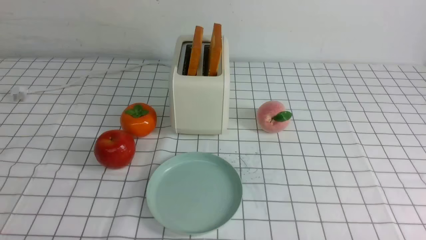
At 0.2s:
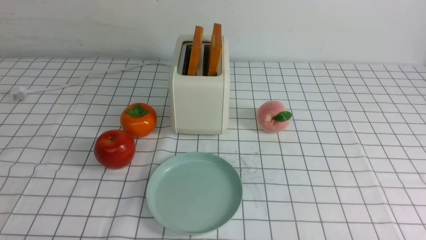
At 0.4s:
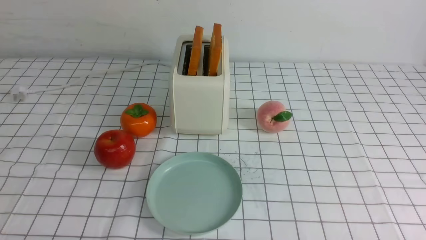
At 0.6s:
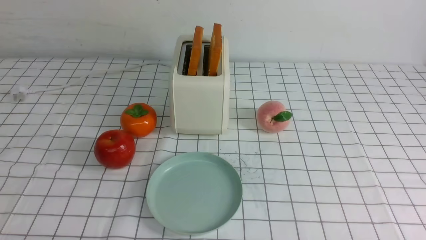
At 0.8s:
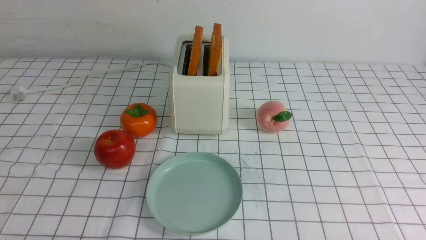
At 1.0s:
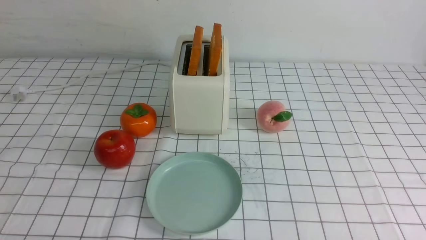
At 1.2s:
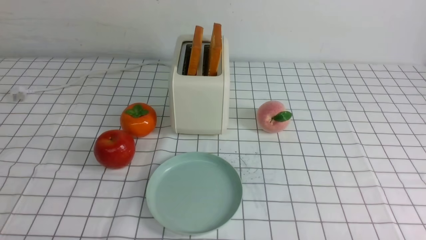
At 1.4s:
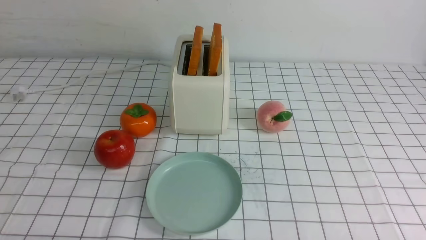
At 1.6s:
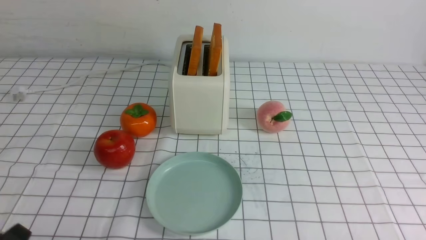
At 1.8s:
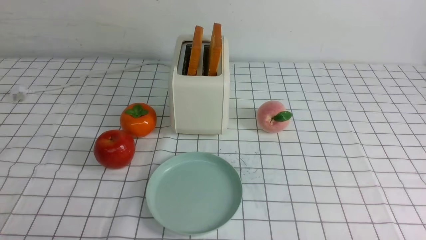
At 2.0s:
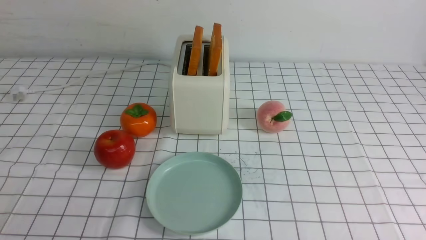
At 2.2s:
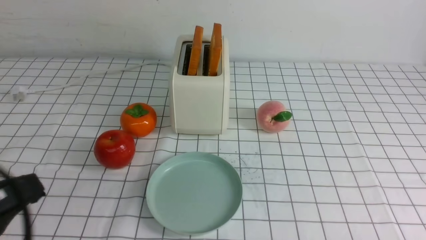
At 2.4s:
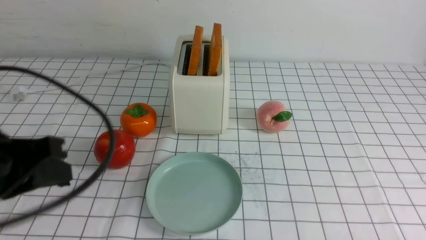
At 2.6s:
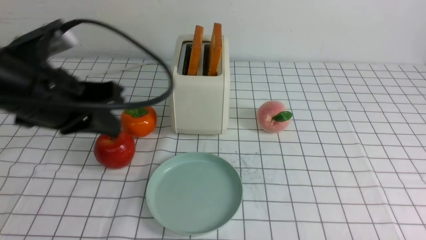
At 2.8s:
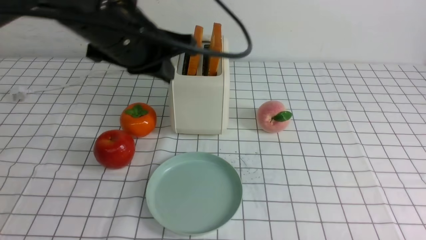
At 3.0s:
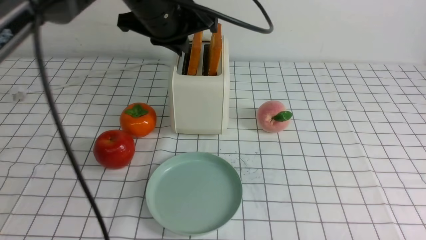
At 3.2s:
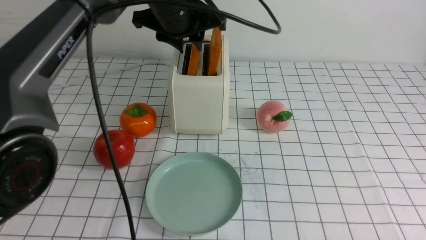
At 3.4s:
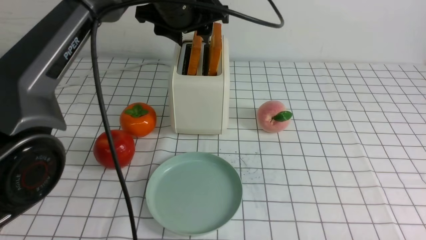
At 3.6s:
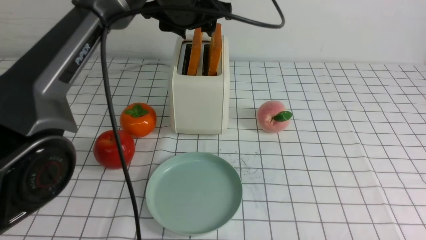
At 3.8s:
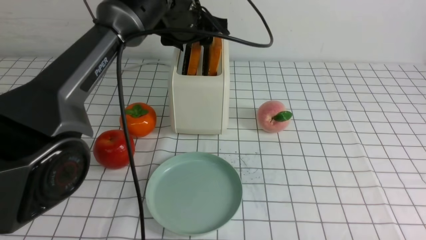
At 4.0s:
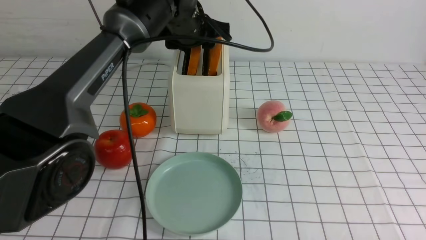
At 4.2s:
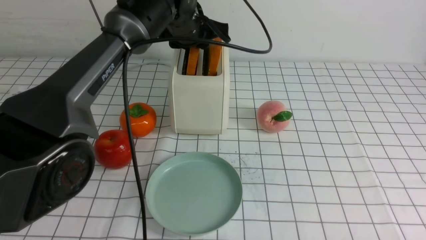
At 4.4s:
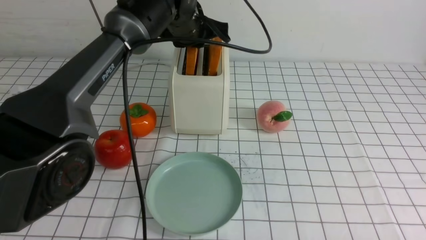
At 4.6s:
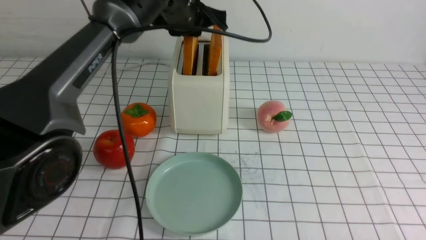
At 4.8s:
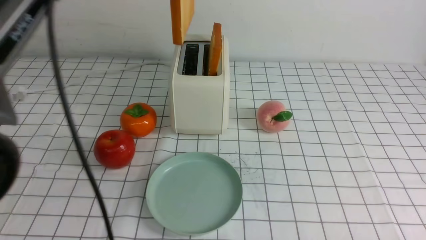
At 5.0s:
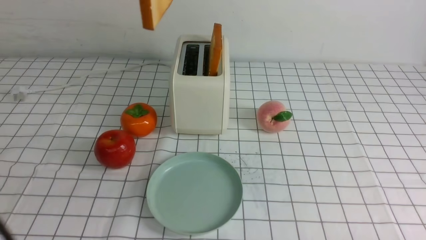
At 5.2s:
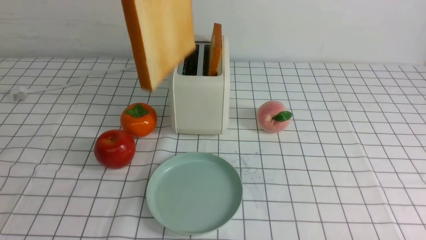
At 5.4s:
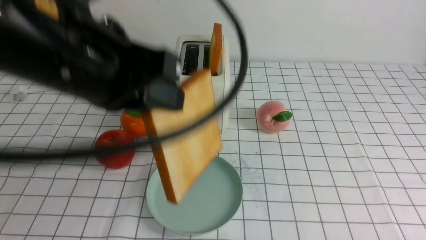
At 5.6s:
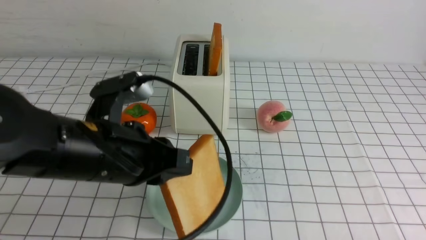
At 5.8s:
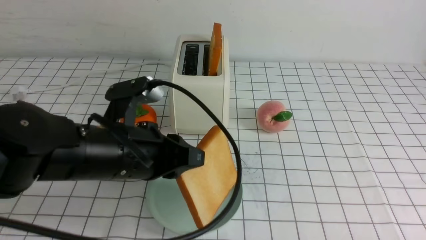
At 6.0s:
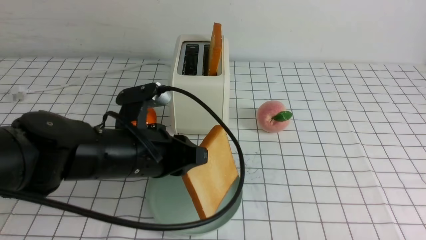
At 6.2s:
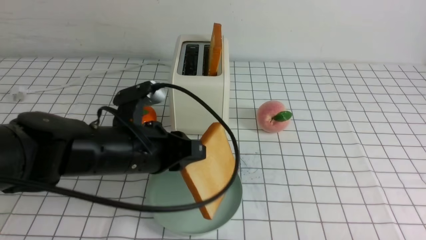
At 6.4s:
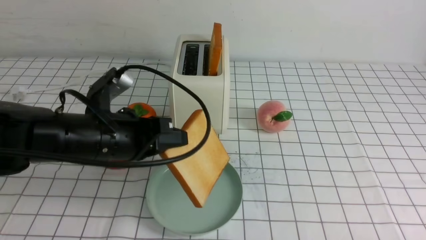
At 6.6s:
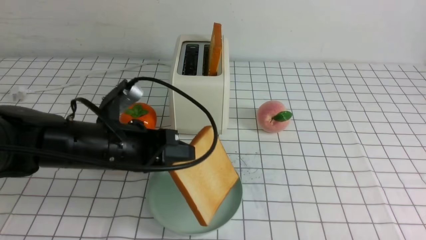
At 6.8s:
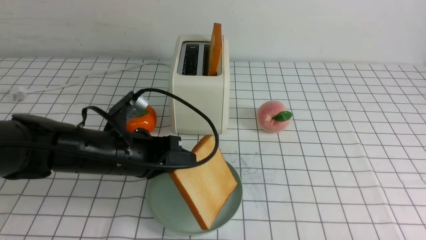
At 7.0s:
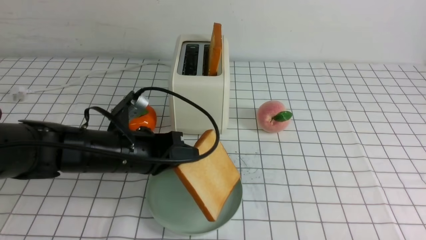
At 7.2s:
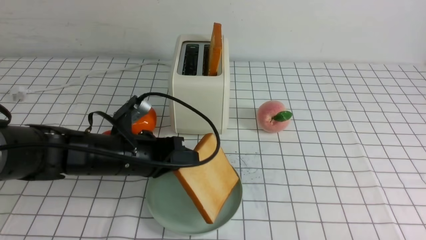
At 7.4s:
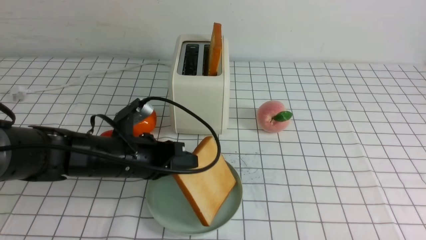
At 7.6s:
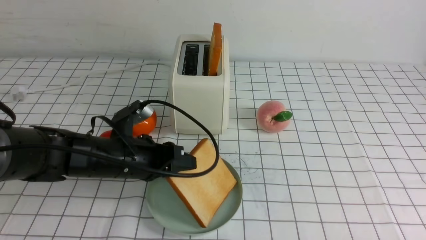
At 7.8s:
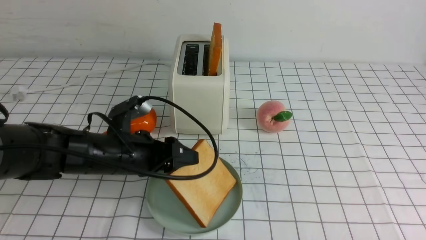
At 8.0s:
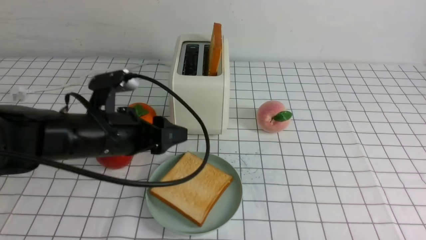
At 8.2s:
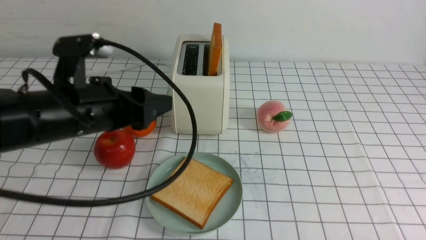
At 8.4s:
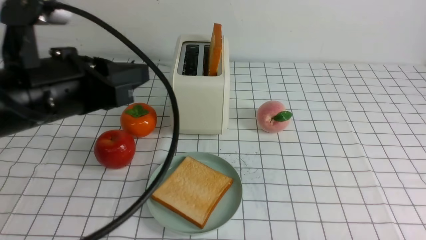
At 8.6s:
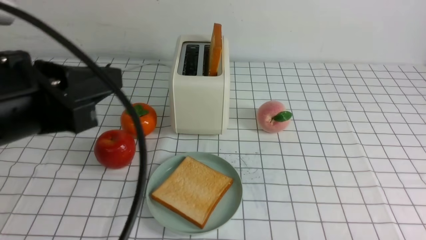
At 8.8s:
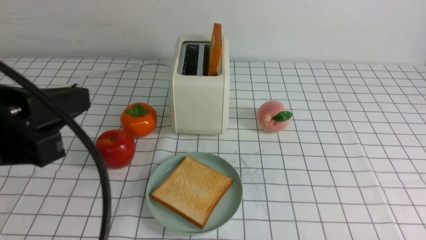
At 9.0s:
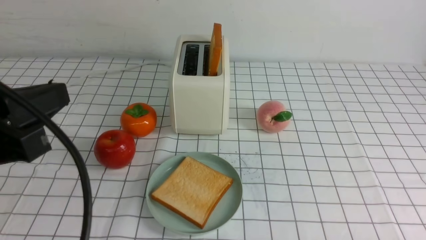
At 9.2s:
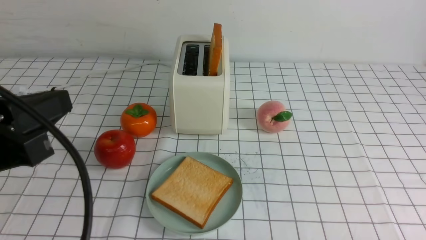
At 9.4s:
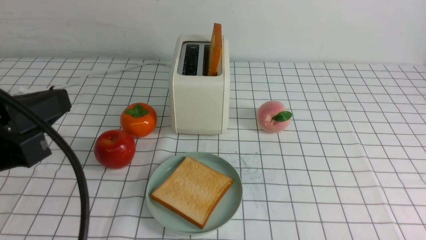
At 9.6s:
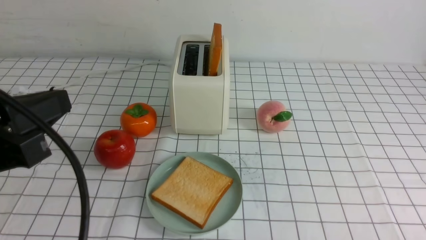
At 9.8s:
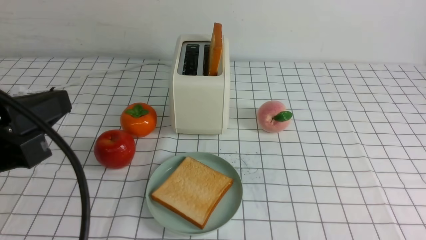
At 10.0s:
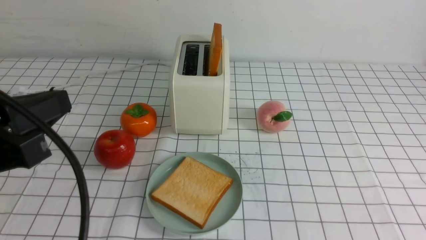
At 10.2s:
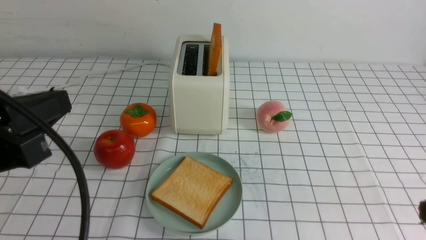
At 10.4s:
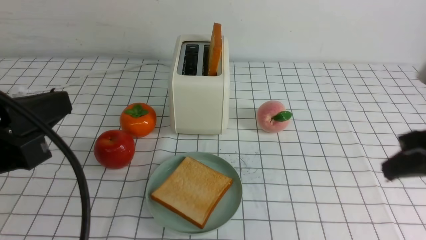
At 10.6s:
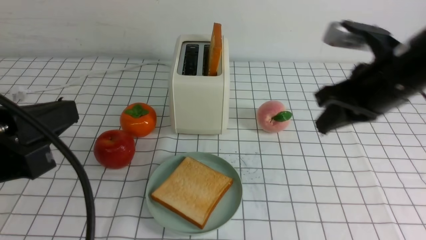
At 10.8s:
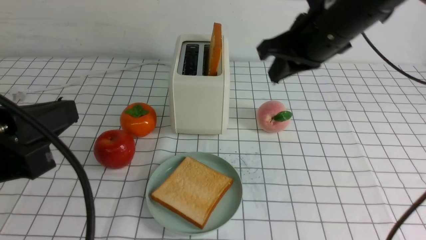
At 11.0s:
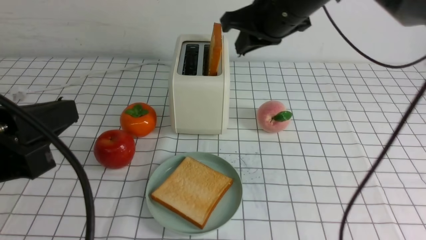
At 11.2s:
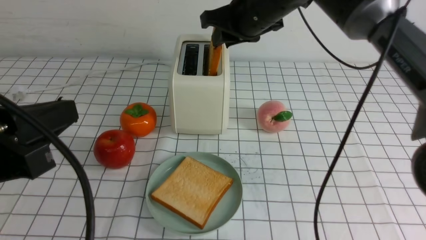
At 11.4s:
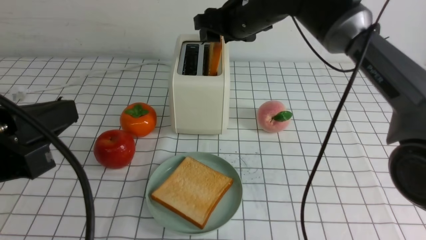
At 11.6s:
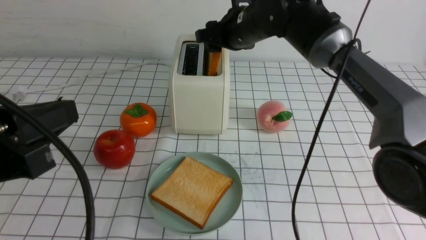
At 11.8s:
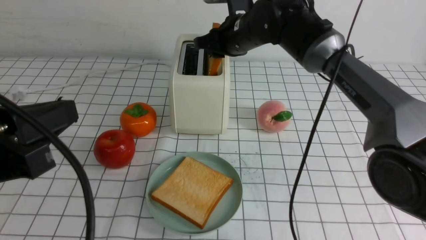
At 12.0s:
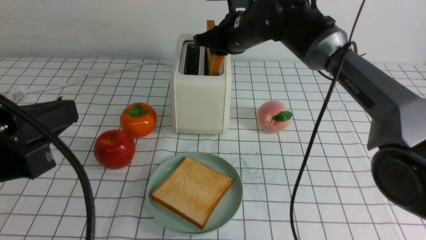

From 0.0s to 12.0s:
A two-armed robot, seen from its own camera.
Task of the whole recording: take toasted bread from bread machine on white checkered table place on plate.
Step, from 0.0s to 4.6s: use the left arm to take out a slice of bread.
Step, from 4.8s to 8.0s: use the left arm to put a slice of bread into the empty plate.
From 1.6s to 3.0s: The left gripper heads forward, upward and to the right, covering roughly 40 cm, and closes and opens again.
From 3.0s to 4.4s: The left gripper travels forward by roughly 10 cm, and opens, then closes once more.
From 4.4s to 6.0s: The left gripper goes roughly 25 cm backward and downward.
From 6.0s to 7.6s: The left gripper shifts approximately 5 cm downward, and opens.
From 7.6s to 9.0s: The left gripper travels upward, backward and to the left by some 25 cm, and closes.
From 9.0s to 10.4s: The right gripper shifts about 25 cm upward and forward, and closes its fingers.
From 10.4s to 12.0s: The right gripper travels forward and to the left by about 30 cm, and opens and closes again.

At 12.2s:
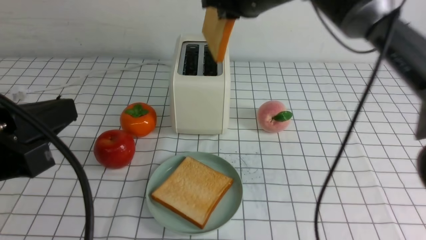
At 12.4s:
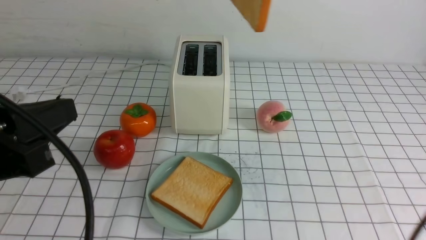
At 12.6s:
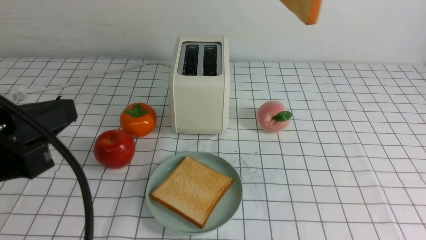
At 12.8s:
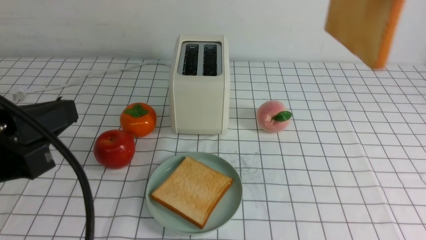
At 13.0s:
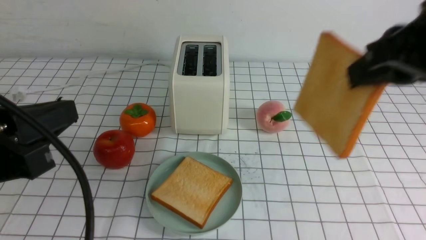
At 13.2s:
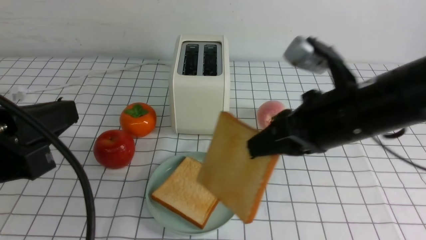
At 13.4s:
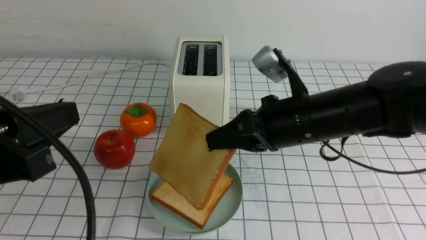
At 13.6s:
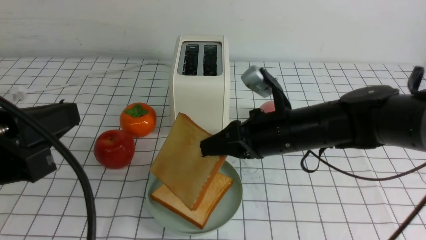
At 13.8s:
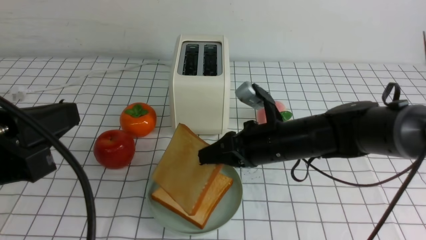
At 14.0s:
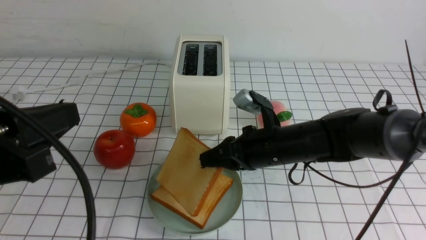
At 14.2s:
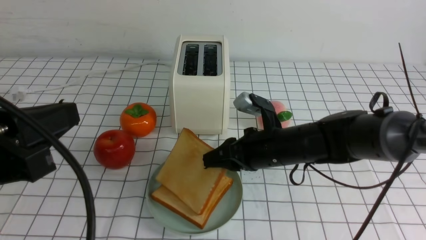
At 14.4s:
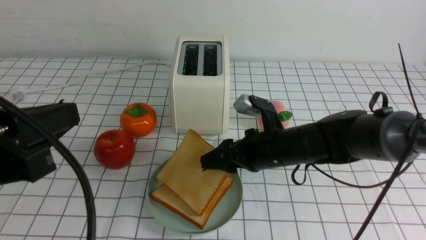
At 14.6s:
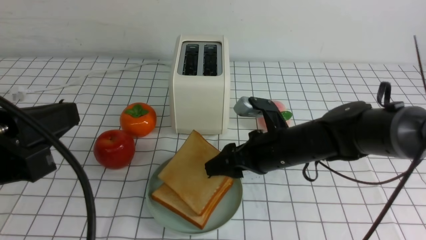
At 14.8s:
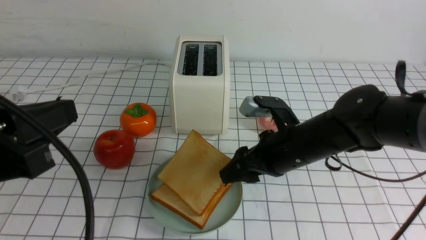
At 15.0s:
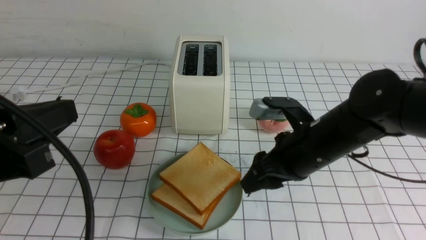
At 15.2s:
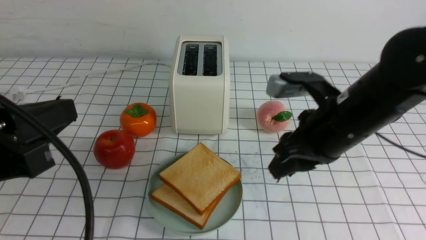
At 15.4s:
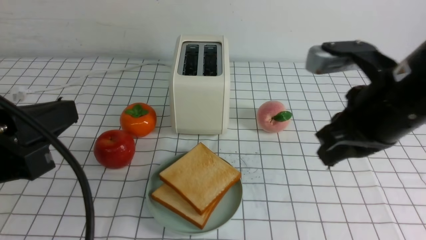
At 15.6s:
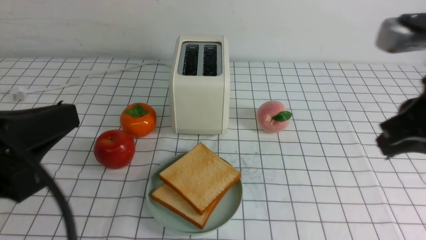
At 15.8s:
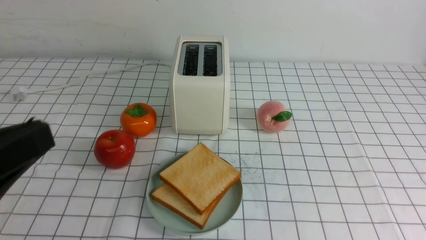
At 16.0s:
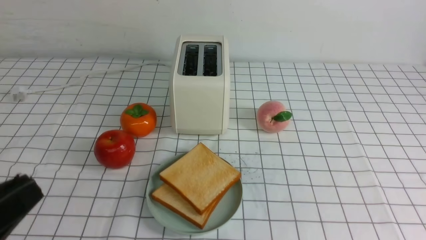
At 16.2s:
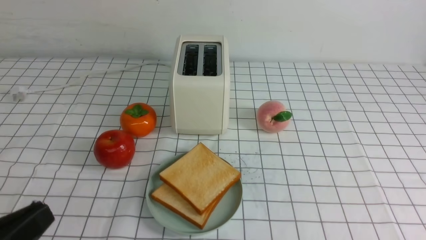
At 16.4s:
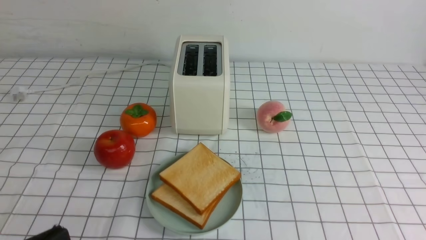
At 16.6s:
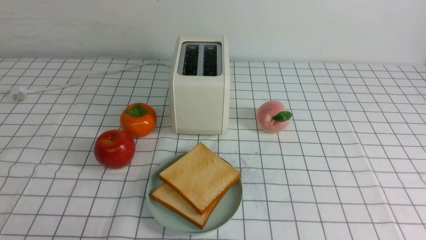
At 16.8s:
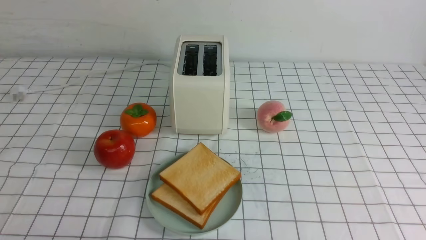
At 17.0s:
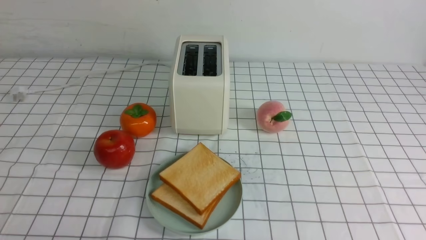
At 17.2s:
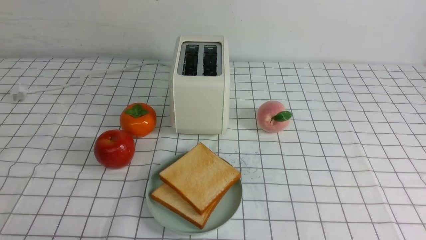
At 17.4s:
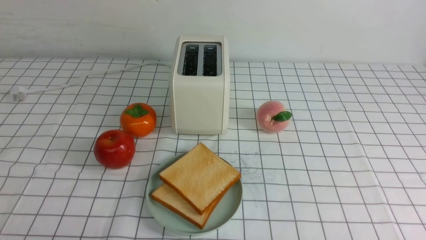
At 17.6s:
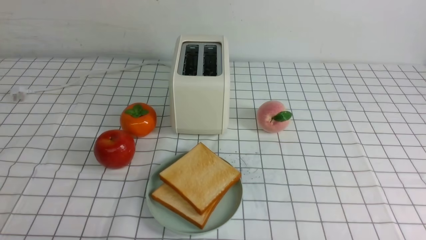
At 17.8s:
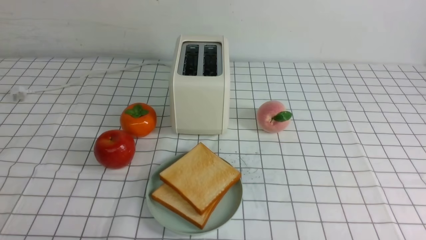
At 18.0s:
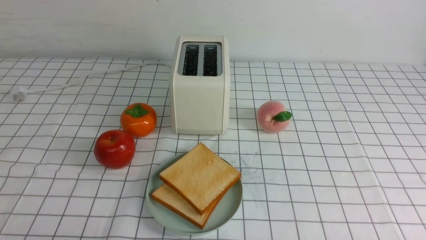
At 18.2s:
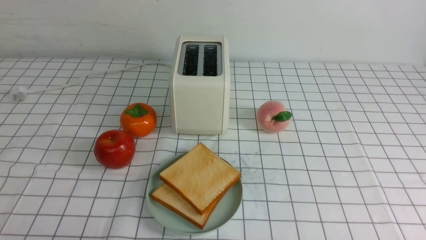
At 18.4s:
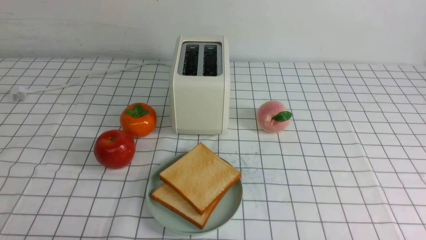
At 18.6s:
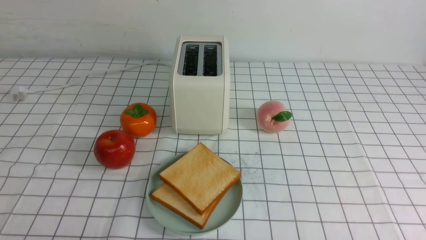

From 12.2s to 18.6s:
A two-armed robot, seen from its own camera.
Task of the whole recording: take toasted bread from bread machine on white checkered table place on plate.
Step, from 12.2s to 15.0s: use the right arm to put a slice of bread into the plate.
From 12.2s to 13.8s: The right gripper goes about 25 cm downward and backward.
From 13.8s to 15.4s: The right gripper travels upward, backward and to the right by about 20 cm, and opens and closes again.
From 15.4s to 17.0s: The right gripper is displaced backward, to the right and downward by roughly 25 cm, while the left gripper is displaced downward and backward by about 15 cm.
